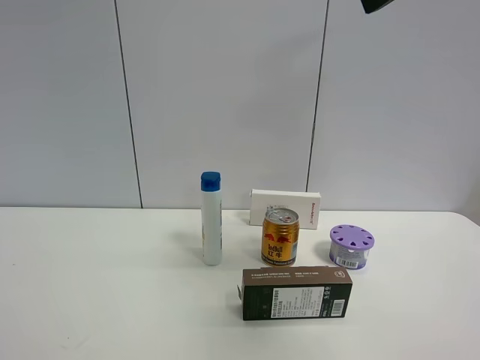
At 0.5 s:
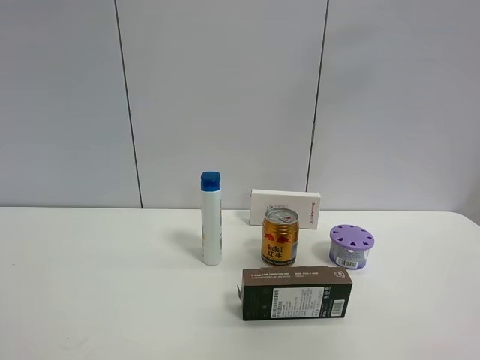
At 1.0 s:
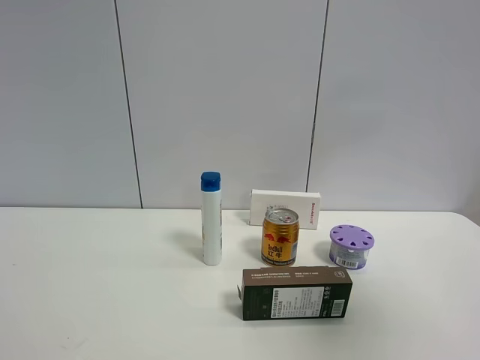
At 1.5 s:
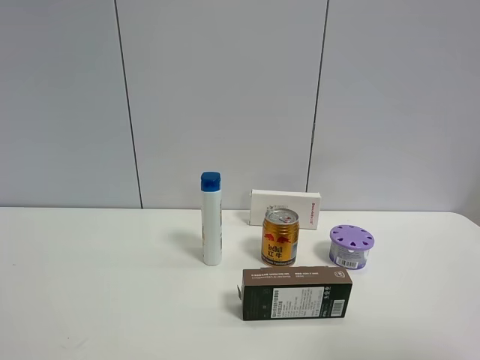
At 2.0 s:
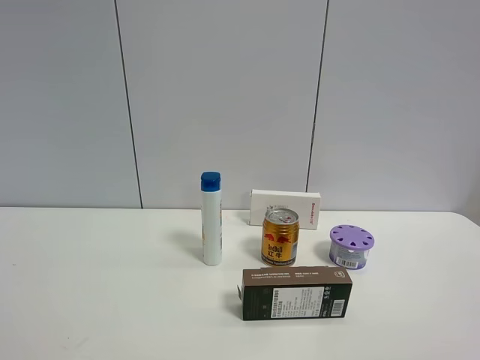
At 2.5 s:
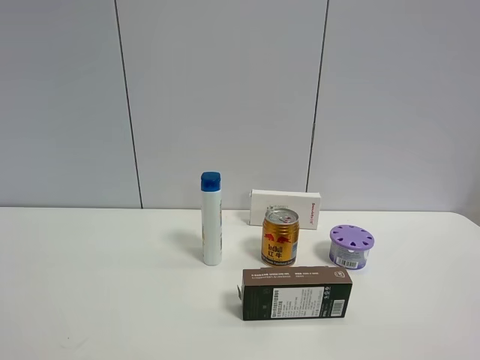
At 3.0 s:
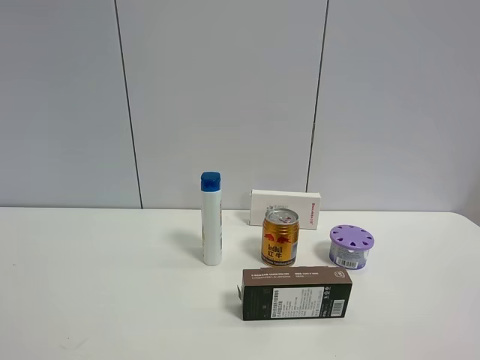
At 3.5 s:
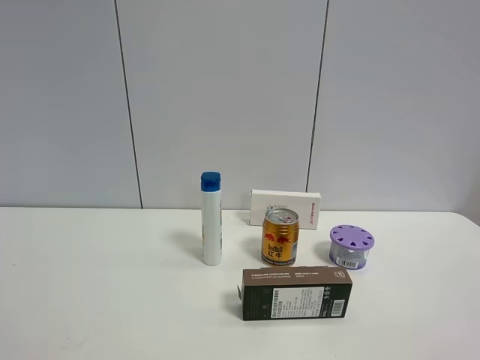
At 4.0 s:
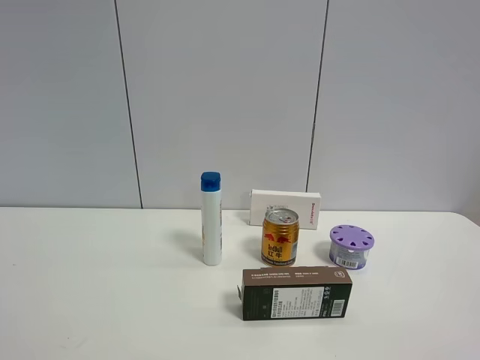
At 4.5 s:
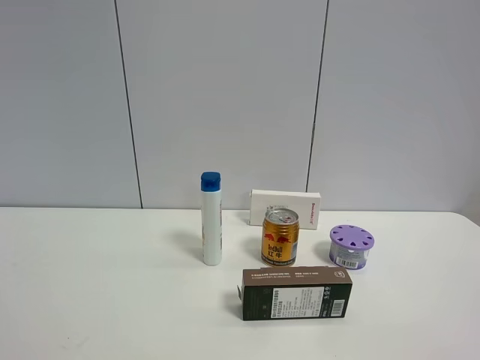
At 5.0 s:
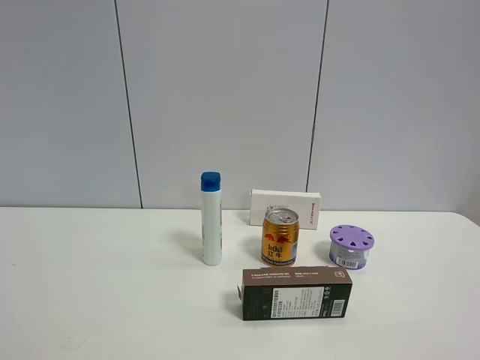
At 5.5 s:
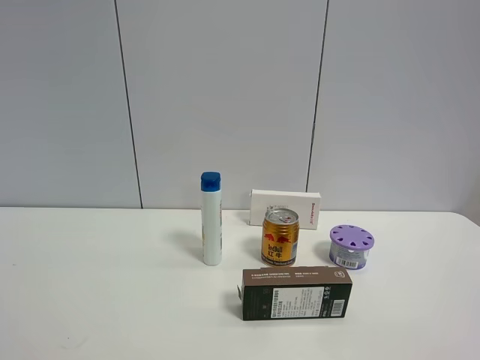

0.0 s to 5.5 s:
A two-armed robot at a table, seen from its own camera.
Task of the whole recording: the gripper move the object.
0.0 to 2.0 s: The right gripper moves backward, downward and to the right, roughly 30 cm.
3.5 to 5.5 s: Both grippers stay put.

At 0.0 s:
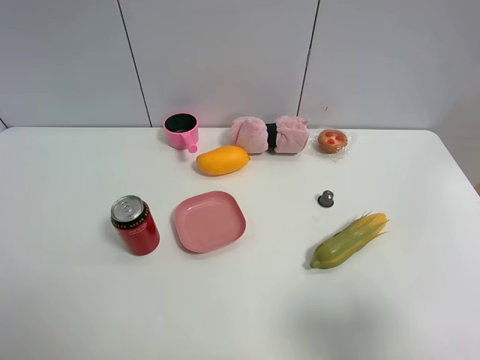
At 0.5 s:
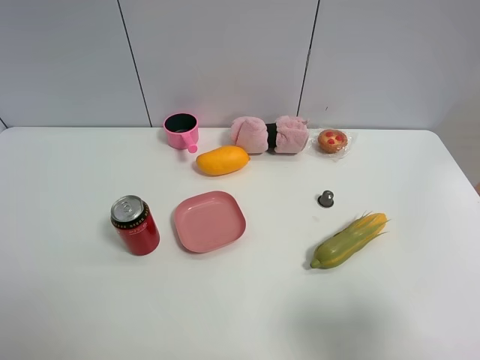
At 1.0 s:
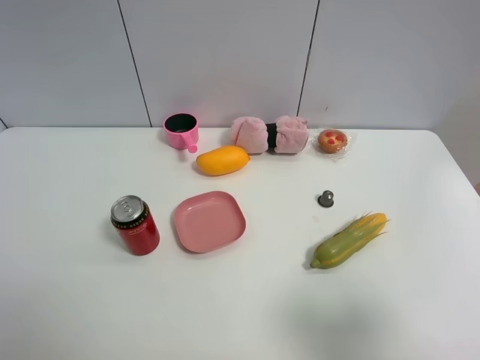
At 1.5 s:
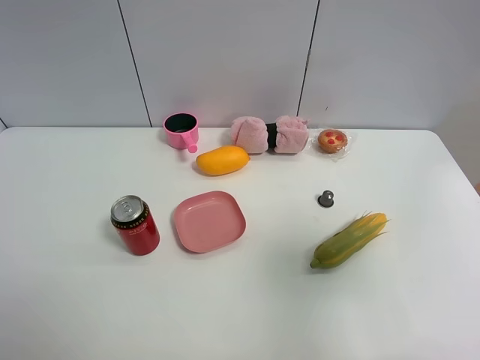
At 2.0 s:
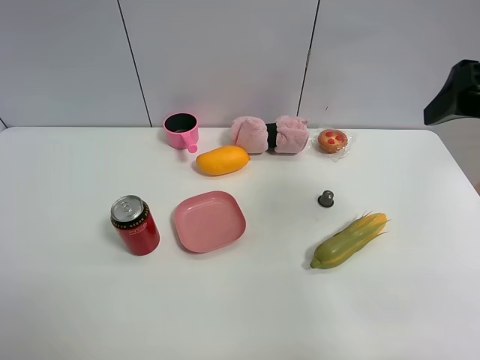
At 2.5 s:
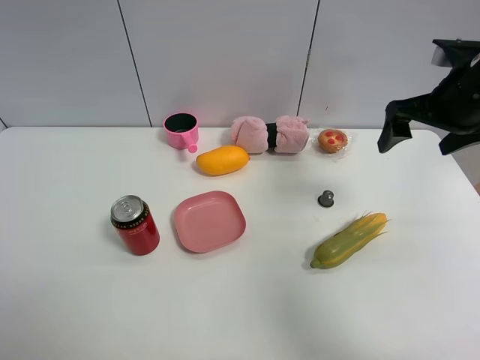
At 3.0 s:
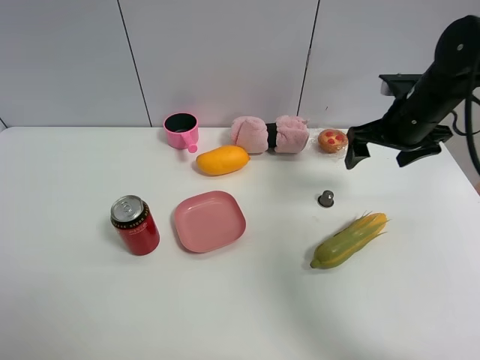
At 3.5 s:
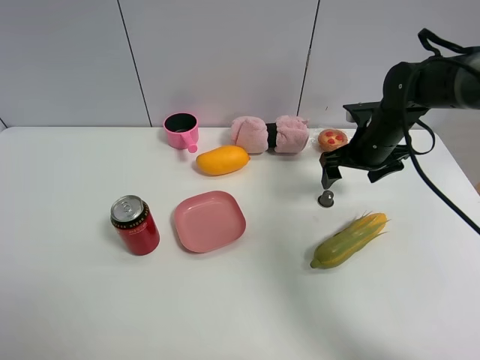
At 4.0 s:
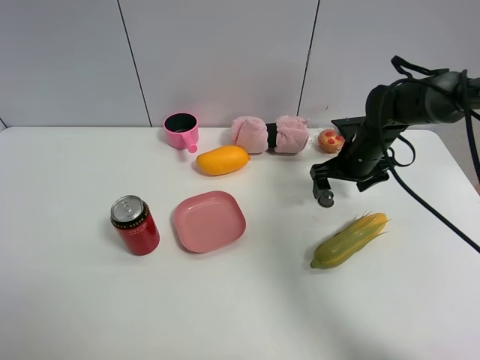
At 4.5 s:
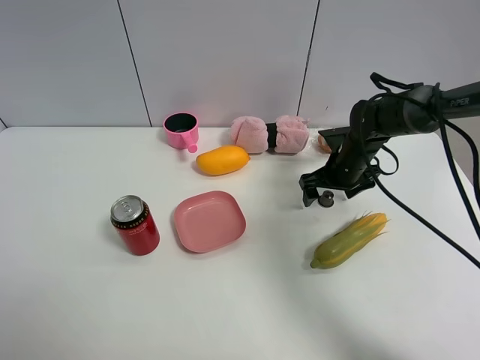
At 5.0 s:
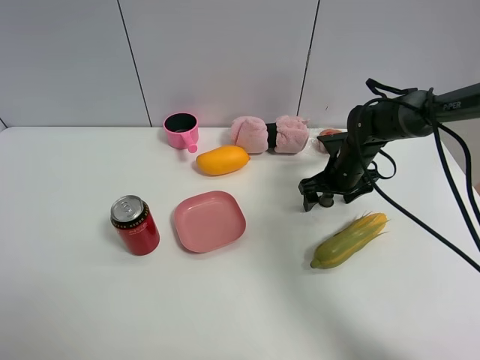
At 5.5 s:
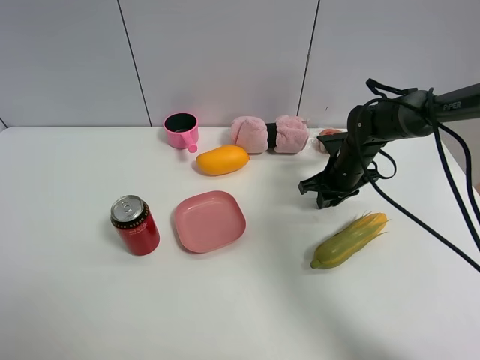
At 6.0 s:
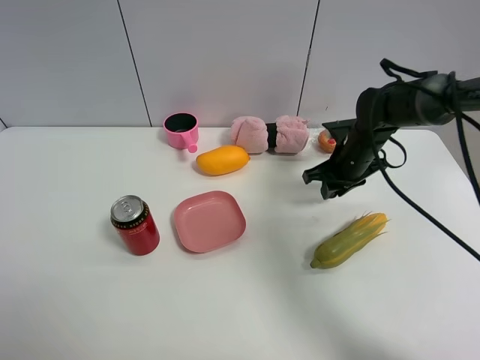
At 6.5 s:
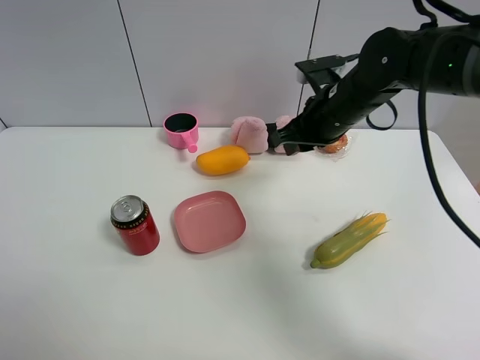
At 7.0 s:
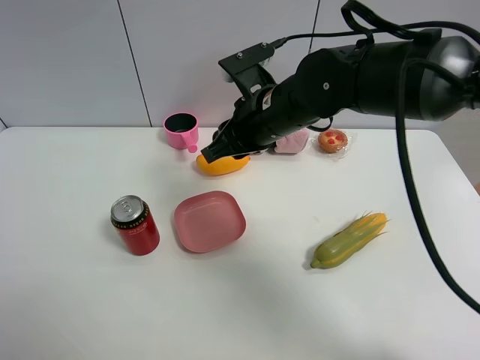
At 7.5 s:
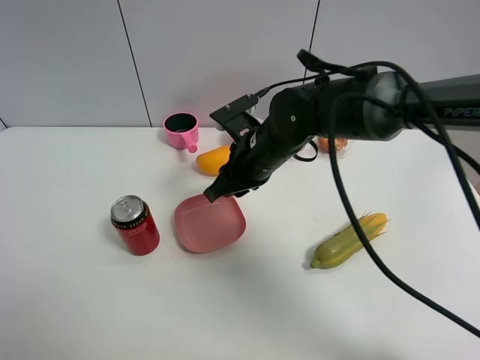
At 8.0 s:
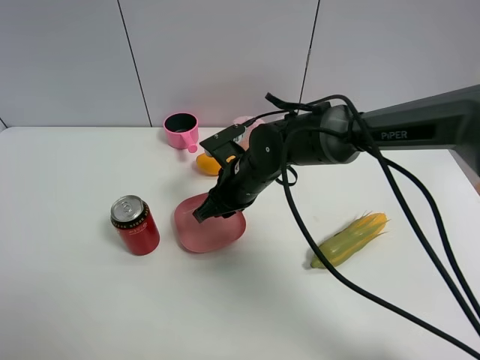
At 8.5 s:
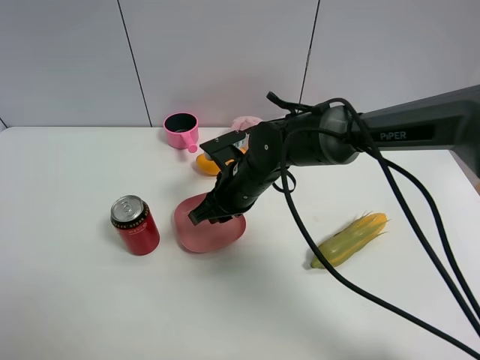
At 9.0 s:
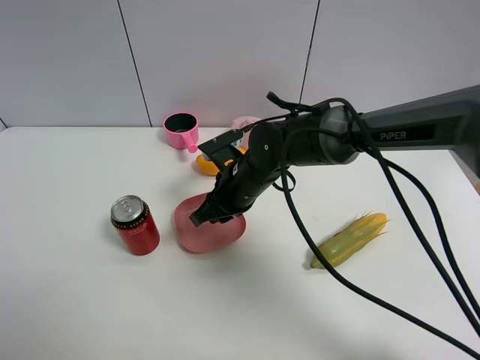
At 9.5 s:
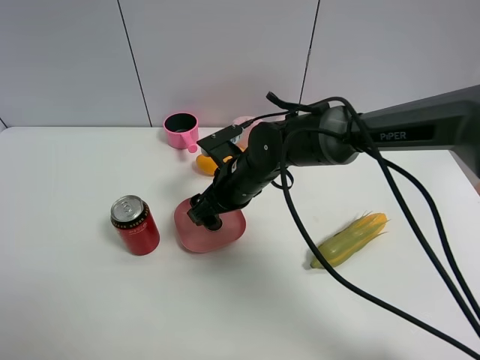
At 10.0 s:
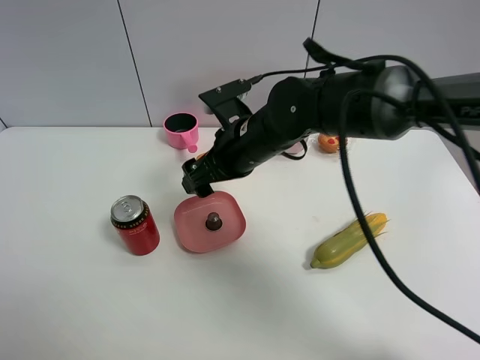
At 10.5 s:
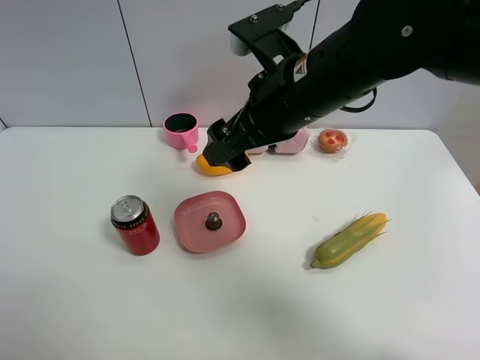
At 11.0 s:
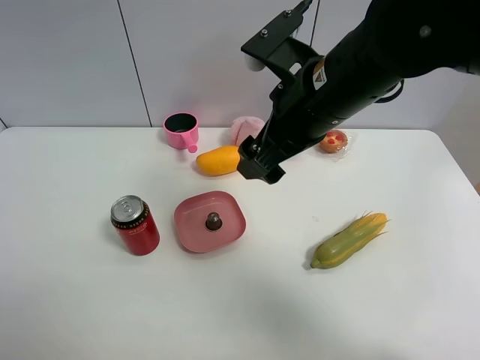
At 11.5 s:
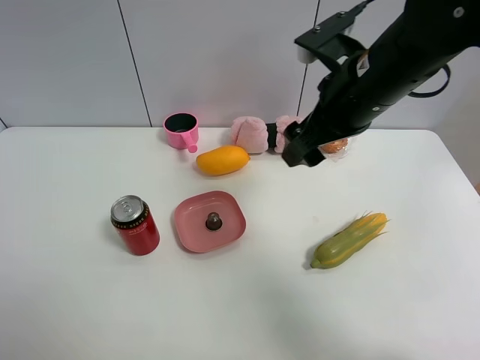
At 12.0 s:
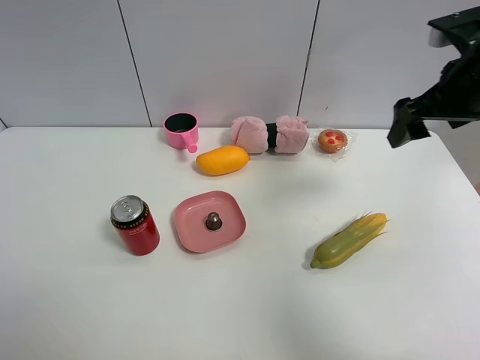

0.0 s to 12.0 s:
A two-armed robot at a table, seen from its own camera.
Task of the whole recording: the gripper move the object.
Step, 0.0 to 5.5 s: Grasp the coffee capsule with the right gripper.
Step, 6.0 to 9.0 s: Place the coffee capsule into the pink plate with the right gripper.
0.0 to 2.0 s: The right gripper travels forward and upward by about 25 cm.
2.0 to 4.0 s: The right gripper travels downward and forward by some 30 cm.
4.0 to 6.0 s: The right gripper closes up.
6.0 to 8.0 s: The right gripper goes about 20 cm to the left.
8.0 to 10.0 s: The right gripper heads upward, covering roughly 10 cm, and opens up.
10.0 to 12.0 s: The right gripper moves to the right and upward, about 30 cm.

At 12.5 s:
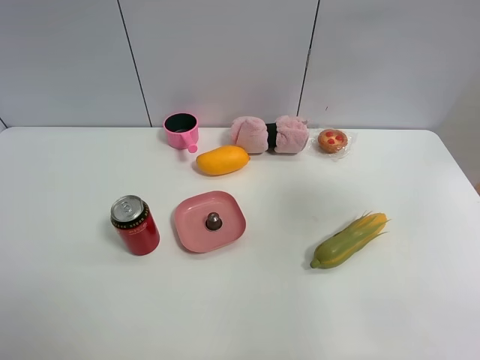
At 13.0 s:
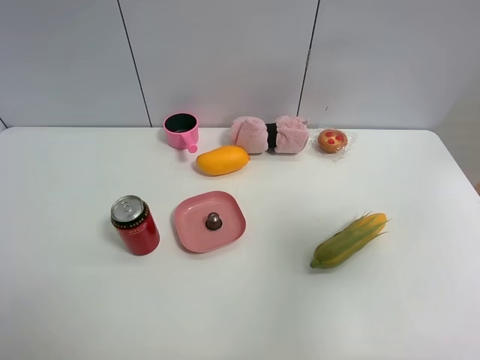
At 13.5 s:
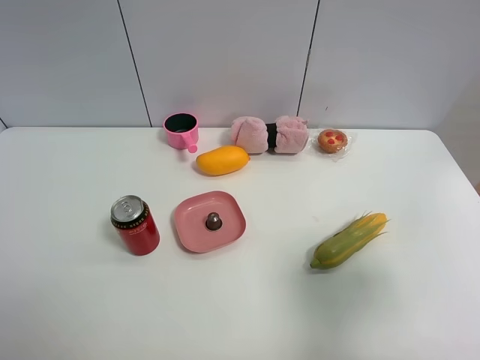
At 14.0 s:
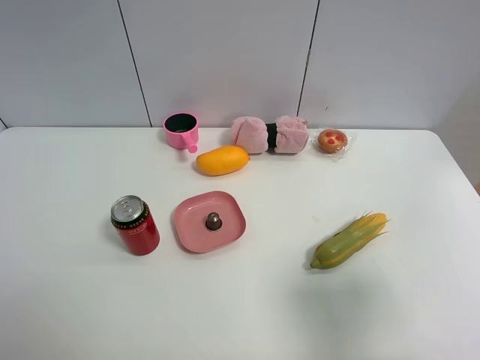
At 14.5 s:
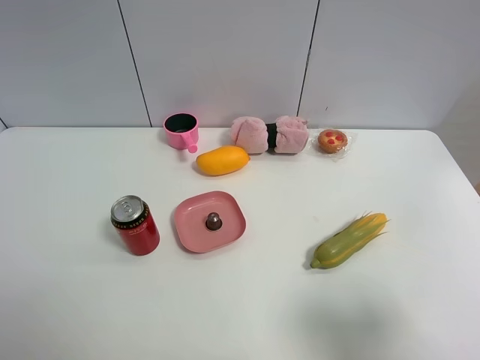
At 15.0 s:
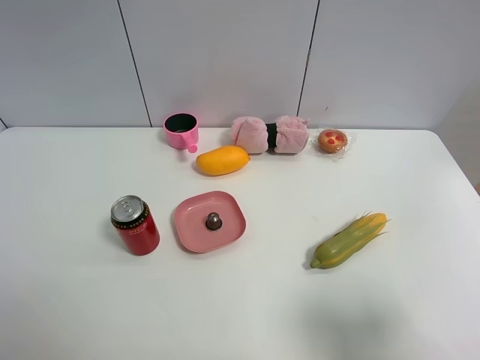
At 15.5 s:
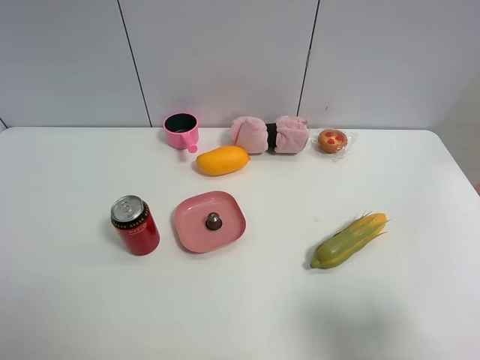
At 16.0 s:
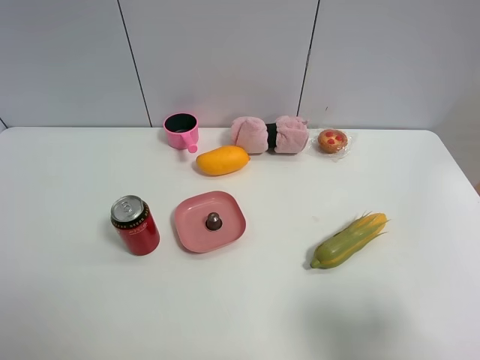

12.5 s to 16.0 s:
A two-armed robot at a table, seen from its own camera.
Task of the whole recording: the gripper move the object.
12.5 to 14.5 s: The right gripper heads backward and downward, covering some 25 cm.
14.5 to 16.0 s: Both grippers stay about where they are.

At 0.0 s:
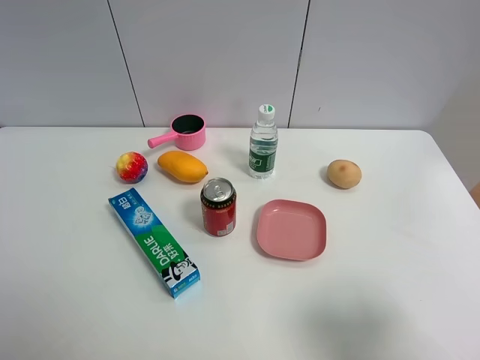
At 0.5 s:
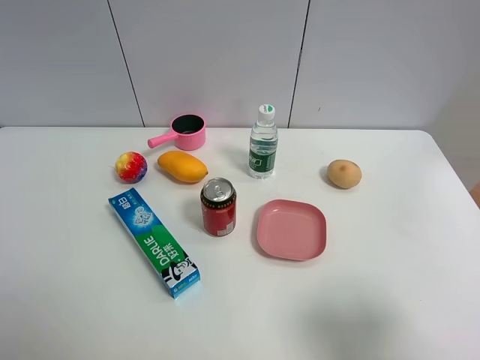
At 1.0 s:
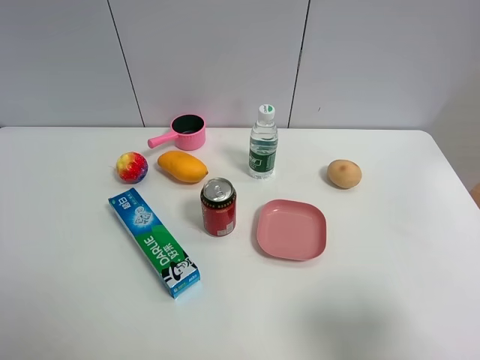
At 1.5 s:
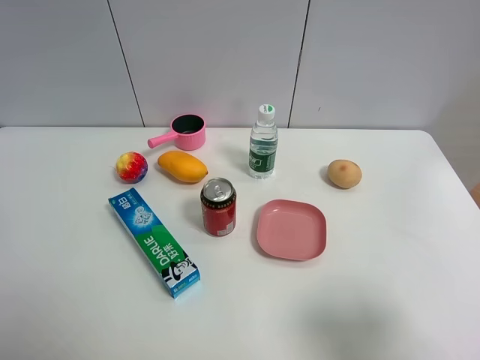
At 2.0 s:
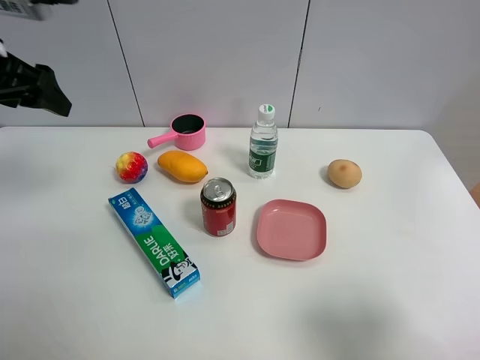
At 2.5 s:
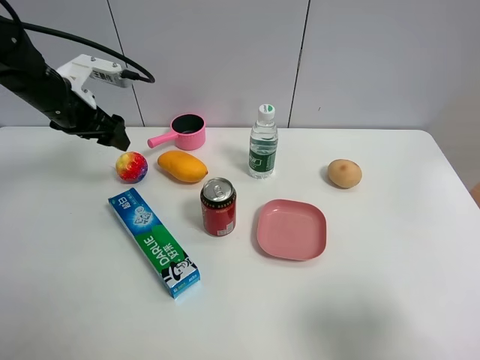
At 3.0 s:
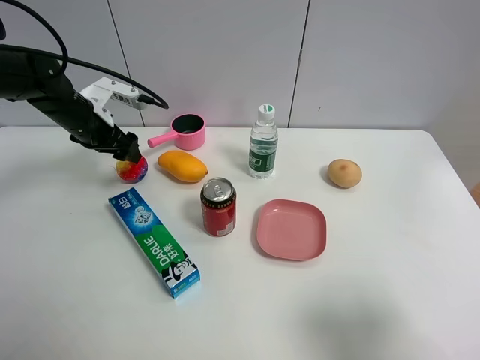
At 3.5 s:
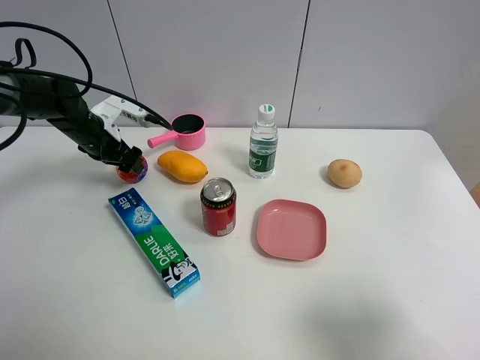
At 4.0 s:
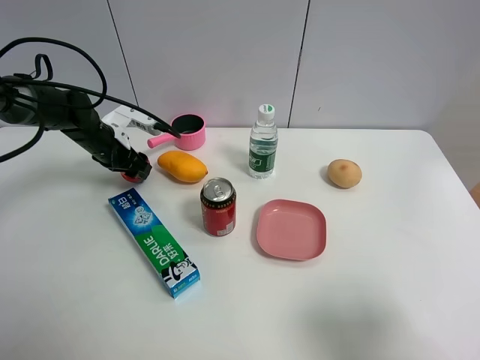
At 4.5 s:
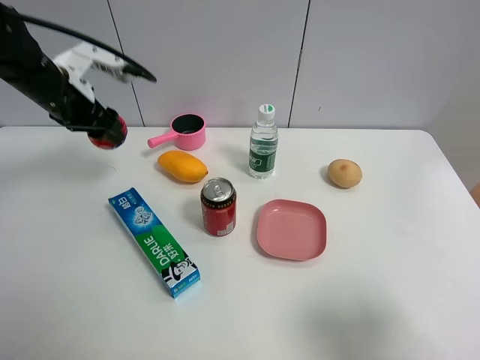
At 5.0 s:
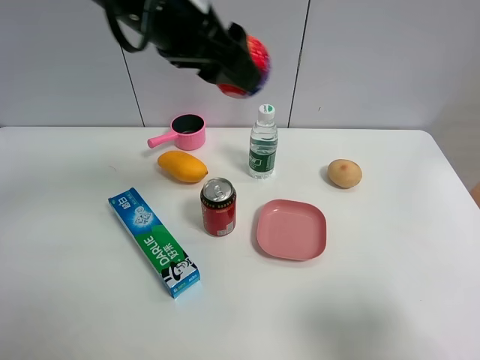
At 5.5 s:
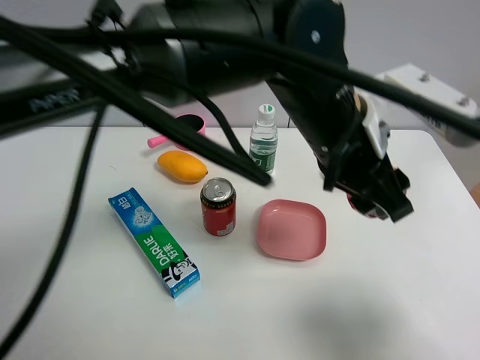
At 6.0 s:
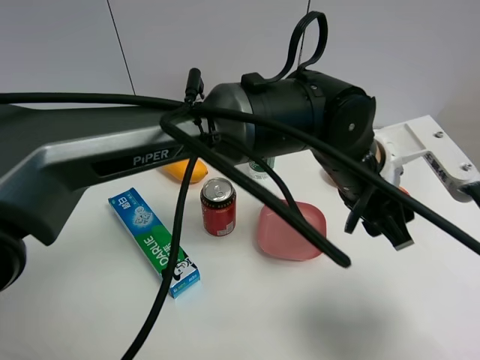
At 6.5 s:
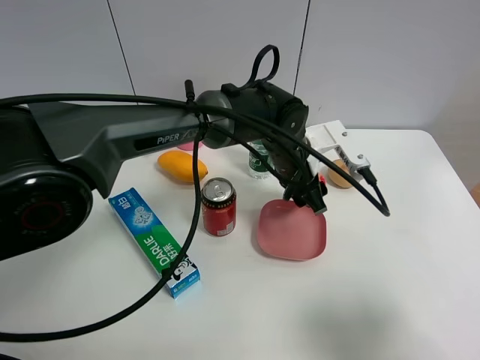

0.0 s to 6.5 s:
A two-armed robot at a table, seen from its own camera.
Task of the whole recording: the gripper move the object.
Step, 0.0 to 4.0 s: Grasp the colorful ball with the left gripper.
0.0 to 2.0 s: The left gripper shifts about 30 cm forward.
2.0 to 4.5 s: The left gripper is displaced downward and forward by about 10 cm, and closes.
4.5 to 6.5 s: The left gripper heads to the right, covering approximately 35 cm.
